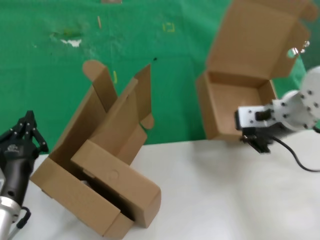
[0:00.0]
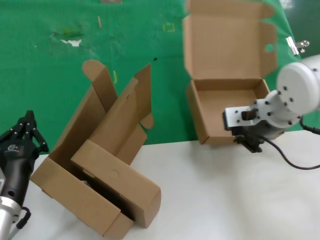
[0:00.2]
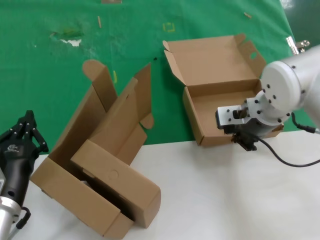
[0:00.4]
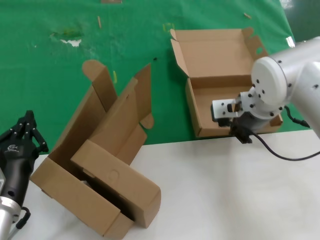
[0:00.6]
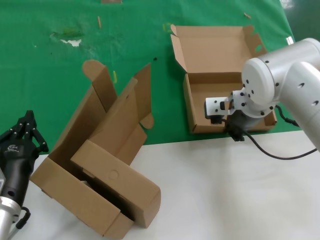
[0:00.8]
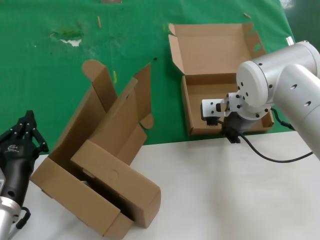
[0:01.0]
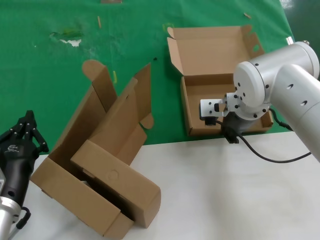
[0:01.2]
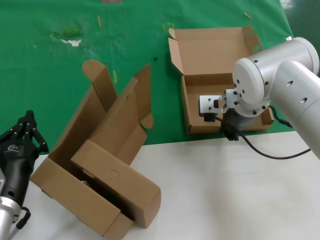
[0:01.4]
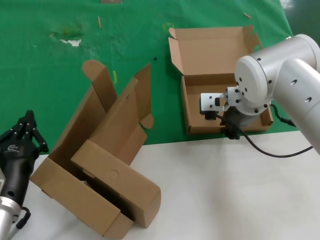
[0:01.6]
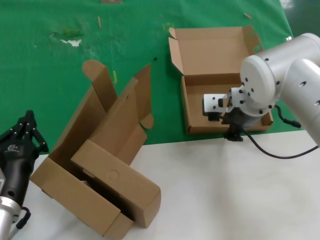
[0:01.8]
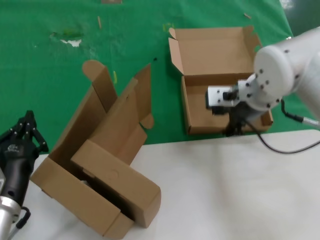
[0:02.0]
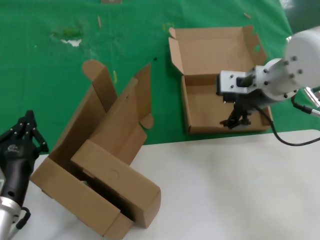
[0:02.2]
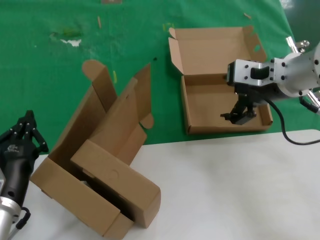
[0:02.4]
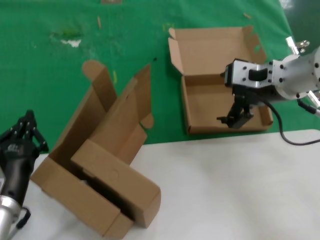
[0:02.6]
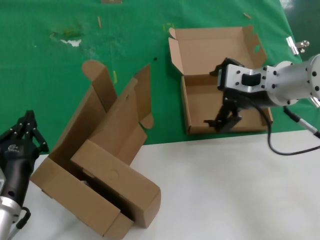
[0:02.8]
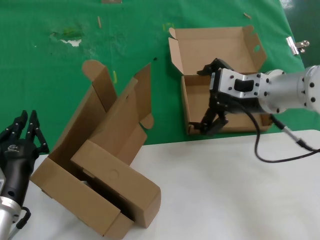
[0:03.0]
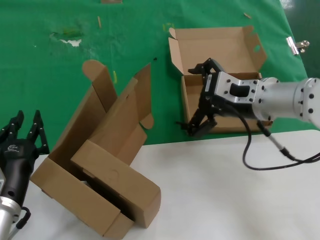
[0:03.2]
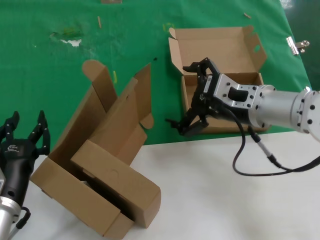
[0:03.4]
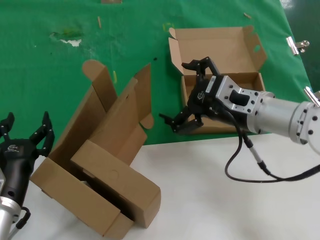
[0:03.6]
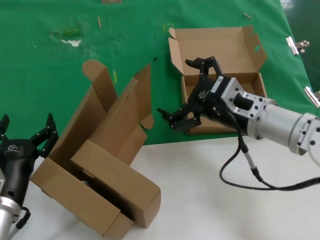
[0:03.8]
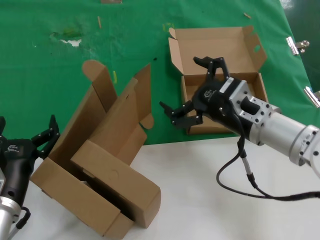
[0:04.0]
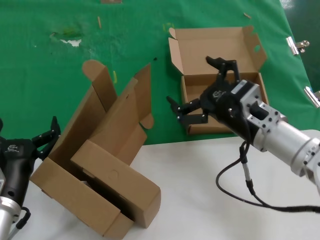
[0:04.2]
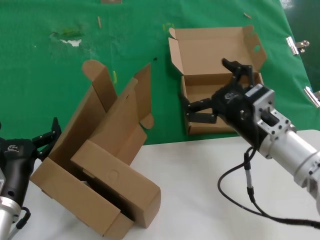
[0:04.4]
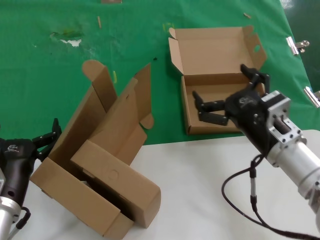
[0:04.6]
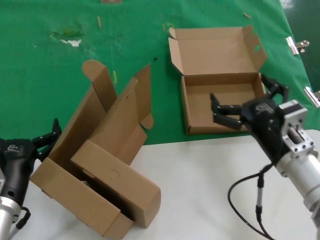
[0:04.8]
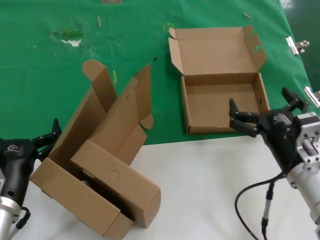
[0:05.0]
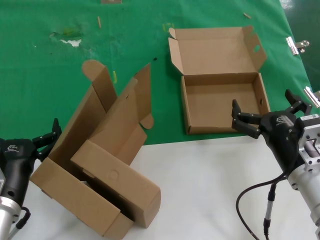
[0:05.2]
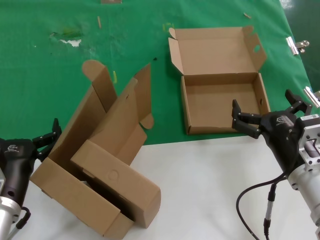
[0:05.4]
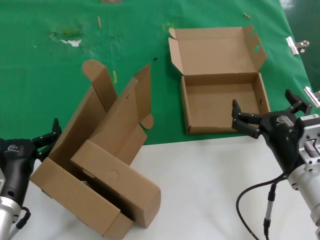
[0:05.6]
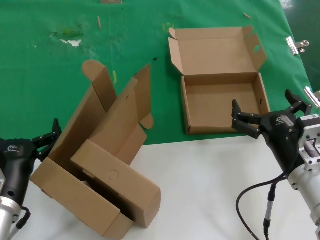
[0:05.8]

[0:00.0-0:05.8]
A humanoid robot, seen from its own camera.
Task of the whole recording: pick up the paper box and put it at the back.
Step, 0:00.0 to 0:01.6: Place the paper box on the table.
0:00.0 to 0:01.4: The right hand goes roughly 10 cm forward and to the left.
0:01.4 to 0:02.8: The right hand heads backward and upward, covering approximately 10 cm.
0:02.8 to 0:04.4: The right hand heads downward and backward, covering roughly 15 cm.
0:04.4 to 0:05.8: The right hand goes some 10 cm downward and backward.
